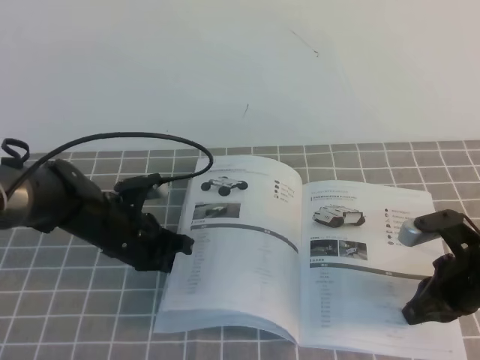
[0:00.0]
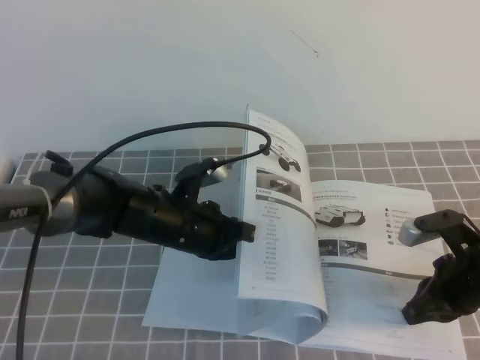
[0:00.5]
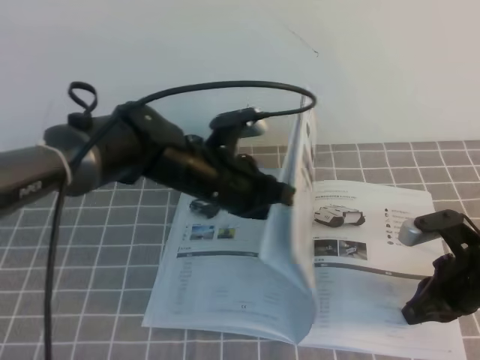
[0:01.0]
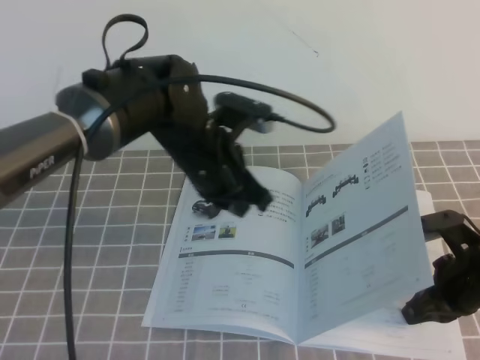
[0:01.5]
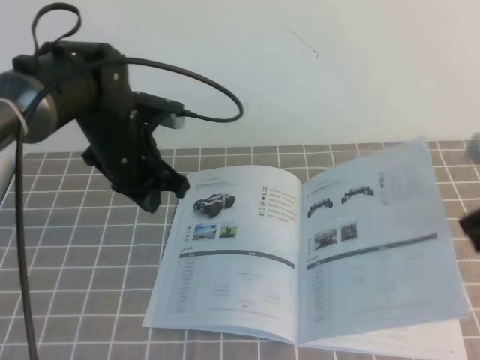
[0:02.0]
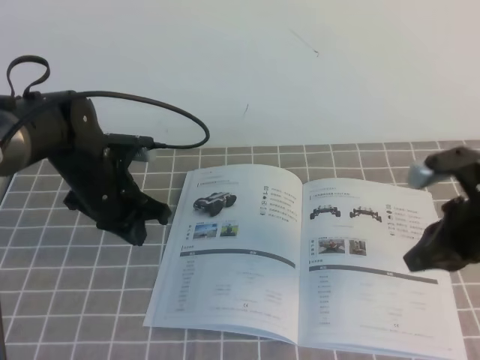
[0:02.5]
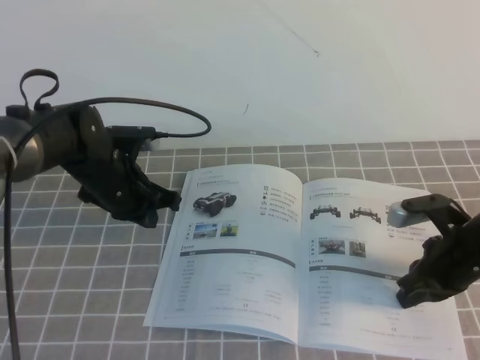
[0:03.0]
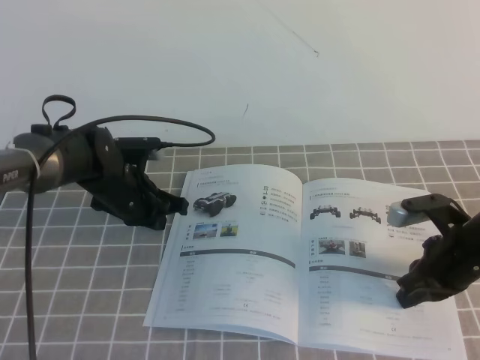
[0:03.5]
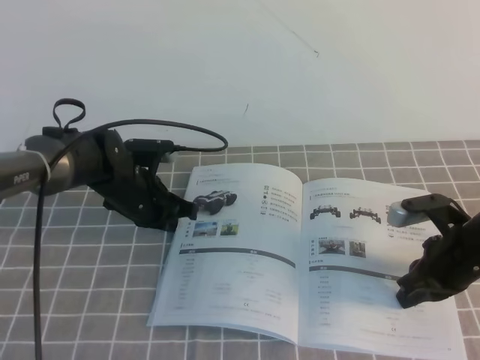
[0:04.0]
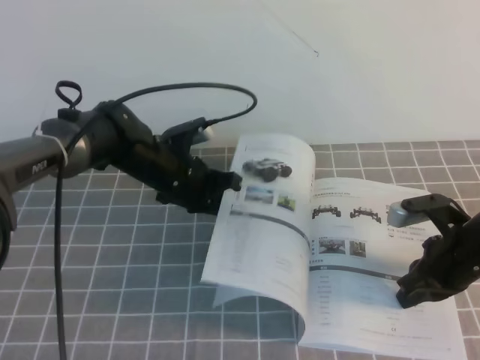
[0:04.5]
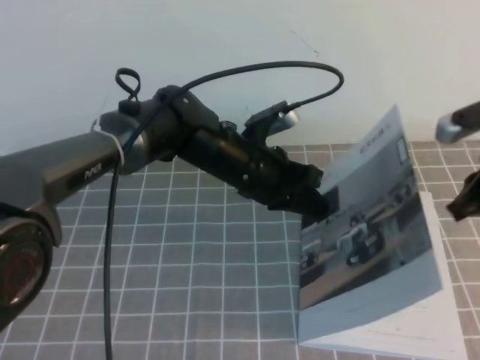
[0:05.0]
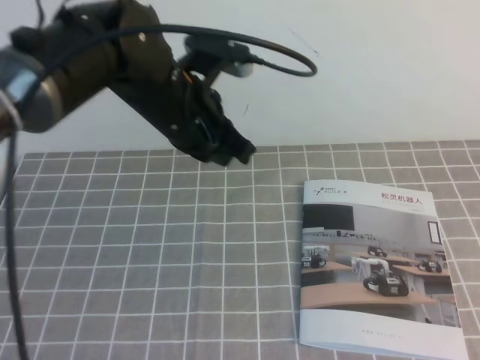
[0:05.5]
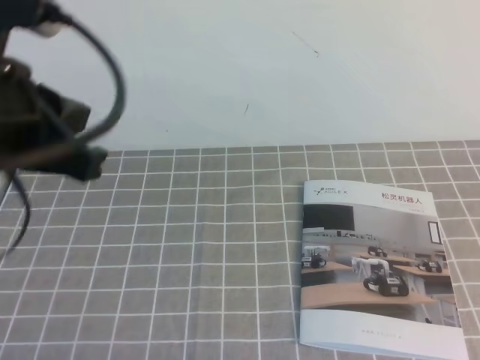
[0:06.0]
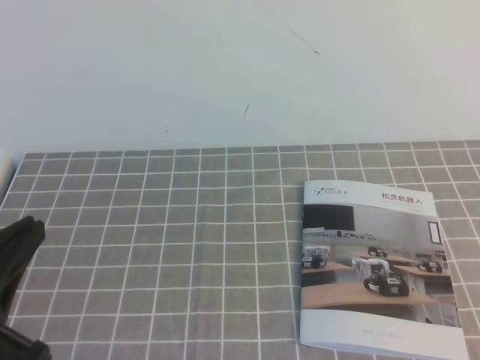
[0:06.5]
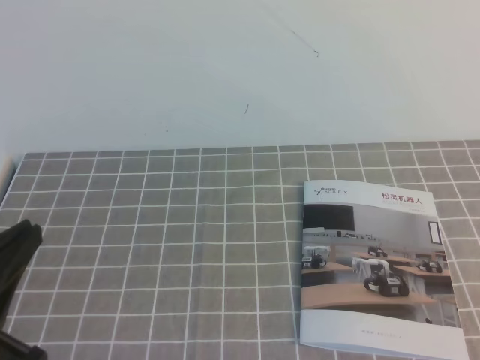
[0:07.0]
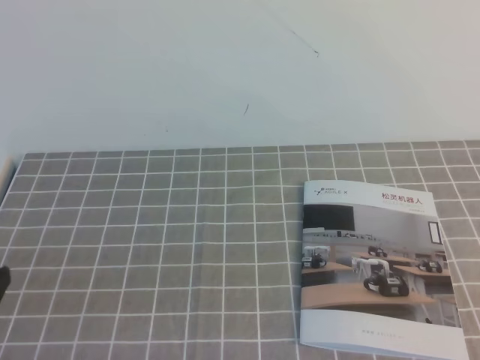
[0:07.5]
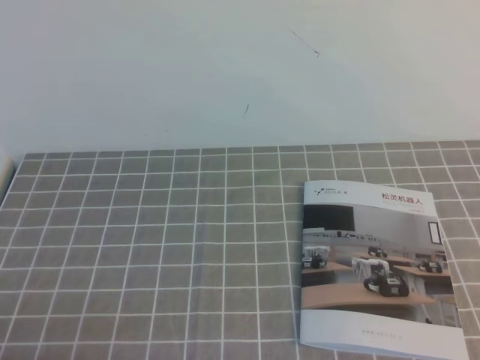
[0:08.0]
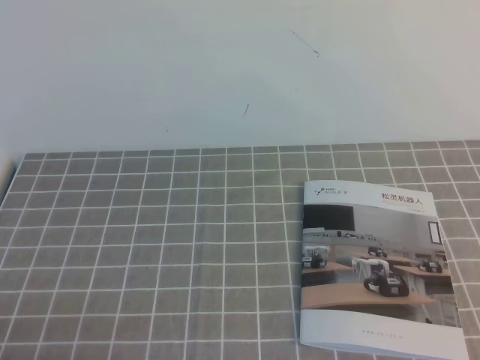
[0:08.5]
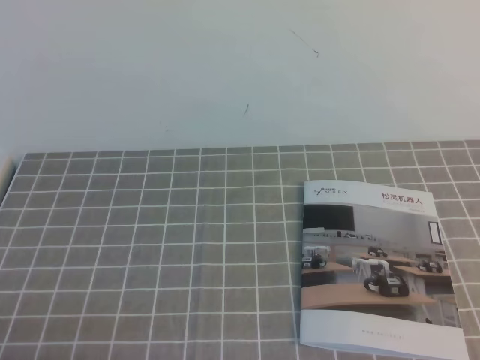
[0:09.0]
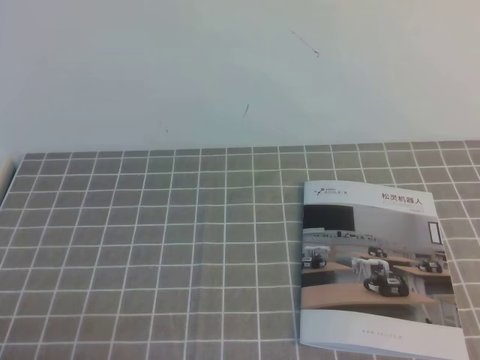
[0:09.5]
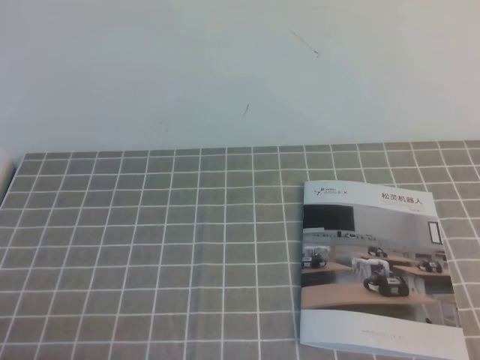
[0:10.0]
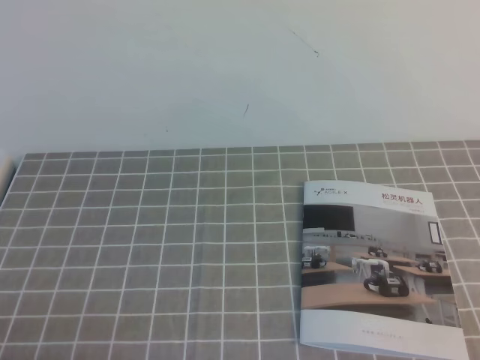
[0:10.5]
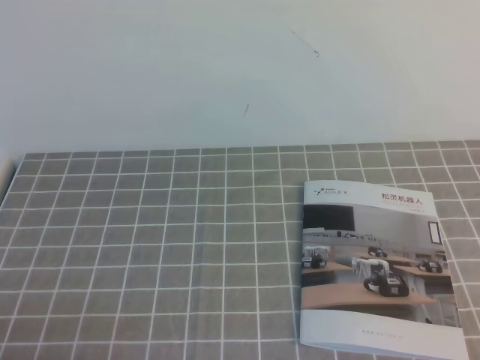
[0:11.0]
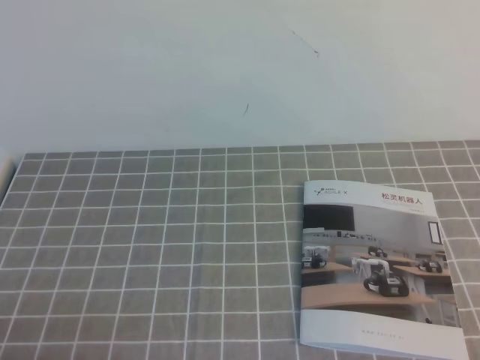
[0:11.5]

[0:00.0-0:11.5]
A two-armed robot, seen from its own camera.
Task of the whole recording: on the grey tablecloth, hold the book with one hand and close it with the other.
Step, 0:00.0 to 0:11.5: Close the open book.
0:00.0 to 0:02.0: Both grippers travel together upward, approximately 10 cm.
0:02.0 to 0:04.0: The right gripper heads downward and forward, covering roughly 15 cm. The left gripper is displaced downward by about 10 cm.
0:04.0 to 0:06.0: Both grippers move upward and backward, about 35 cm.
0:06.0 to 0:07.5: The left gripper is displaced downward, backward and to the left by some 20 cm. Meanwhile the right gripper goes roughly 10 cm downward and backward.
